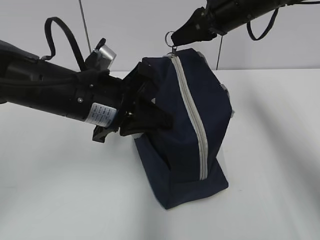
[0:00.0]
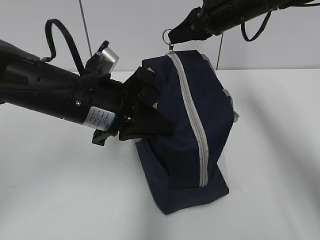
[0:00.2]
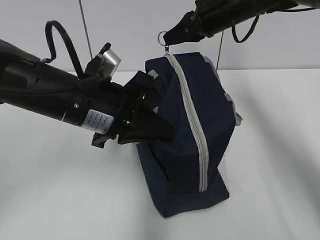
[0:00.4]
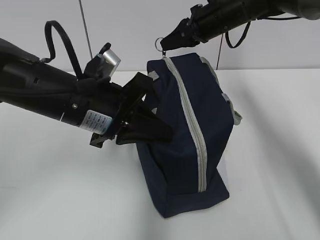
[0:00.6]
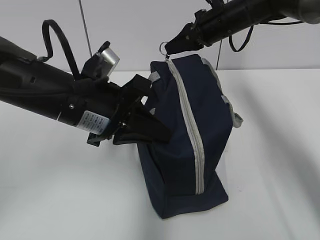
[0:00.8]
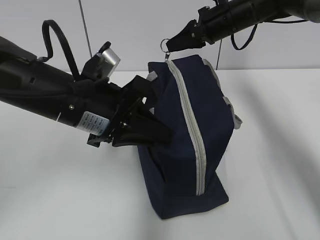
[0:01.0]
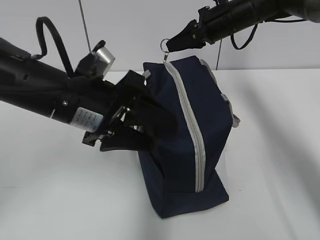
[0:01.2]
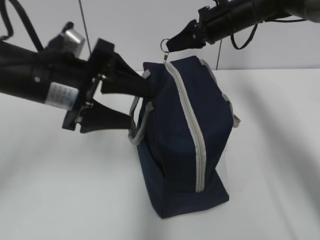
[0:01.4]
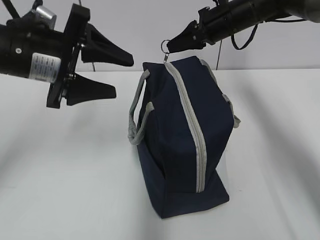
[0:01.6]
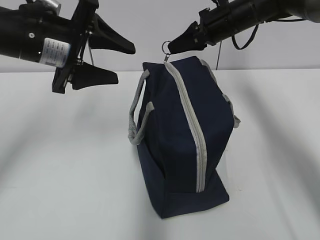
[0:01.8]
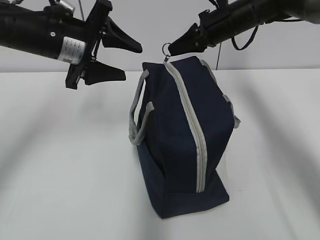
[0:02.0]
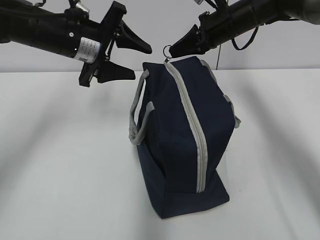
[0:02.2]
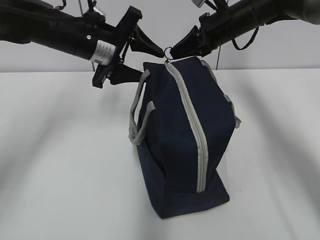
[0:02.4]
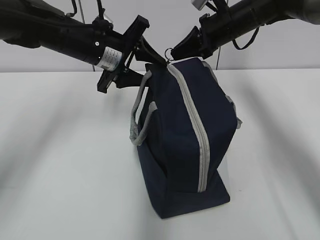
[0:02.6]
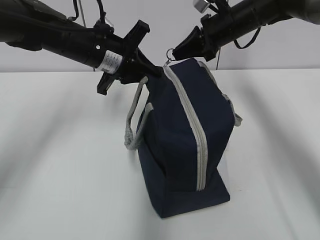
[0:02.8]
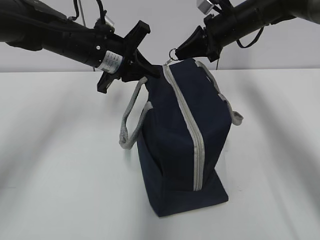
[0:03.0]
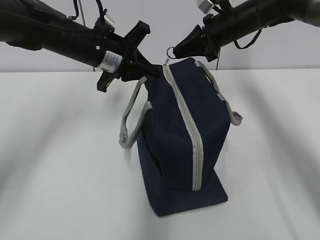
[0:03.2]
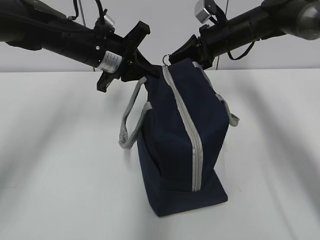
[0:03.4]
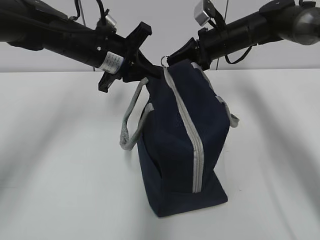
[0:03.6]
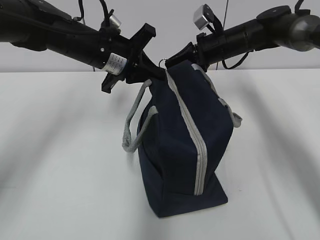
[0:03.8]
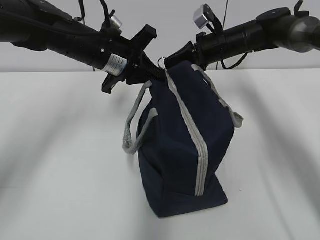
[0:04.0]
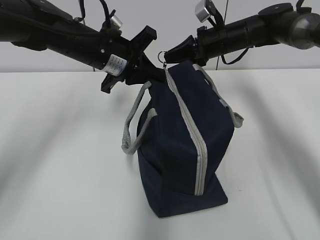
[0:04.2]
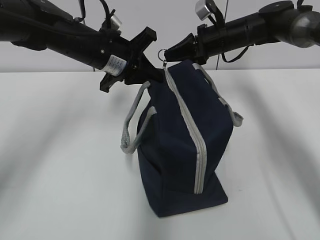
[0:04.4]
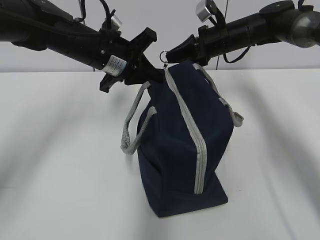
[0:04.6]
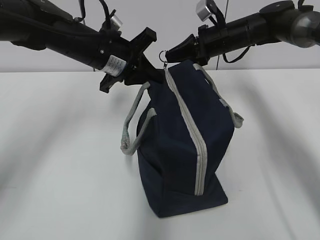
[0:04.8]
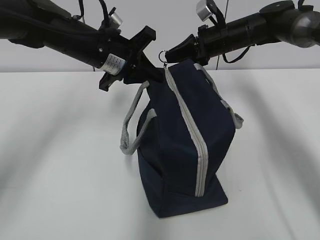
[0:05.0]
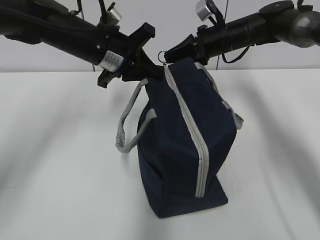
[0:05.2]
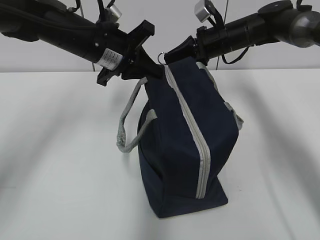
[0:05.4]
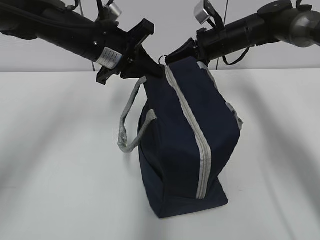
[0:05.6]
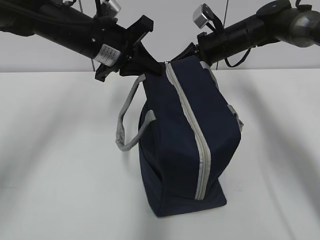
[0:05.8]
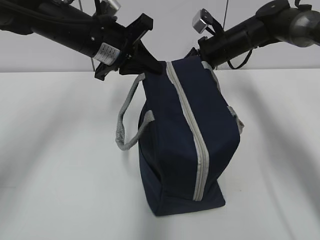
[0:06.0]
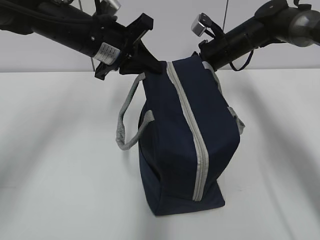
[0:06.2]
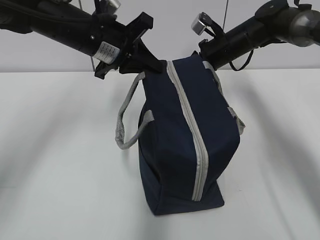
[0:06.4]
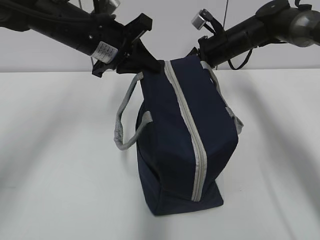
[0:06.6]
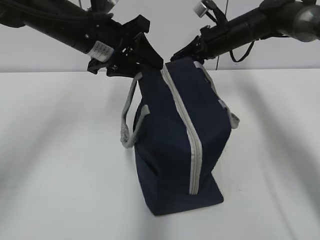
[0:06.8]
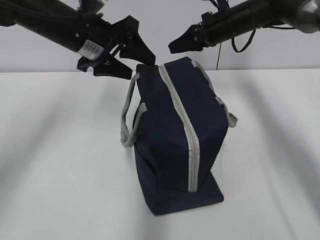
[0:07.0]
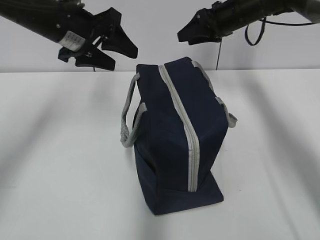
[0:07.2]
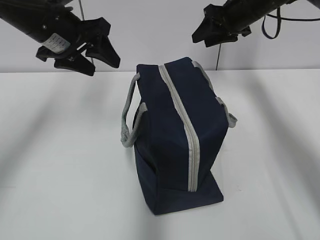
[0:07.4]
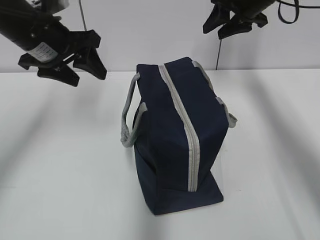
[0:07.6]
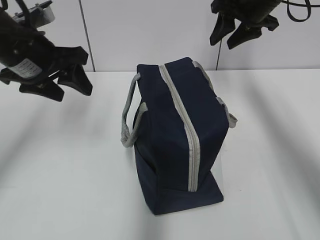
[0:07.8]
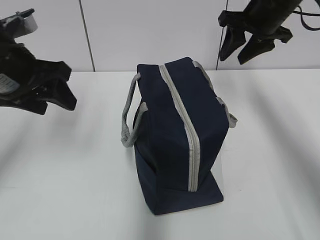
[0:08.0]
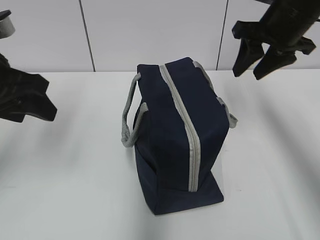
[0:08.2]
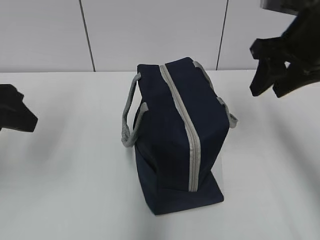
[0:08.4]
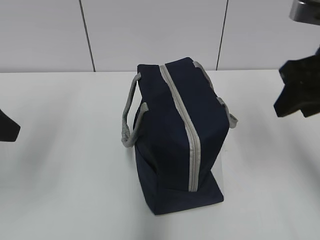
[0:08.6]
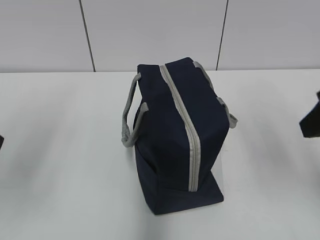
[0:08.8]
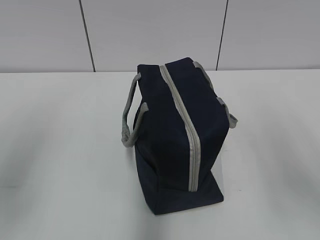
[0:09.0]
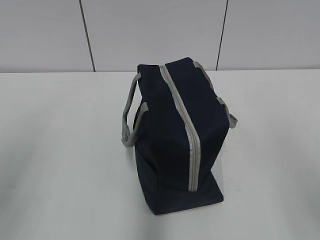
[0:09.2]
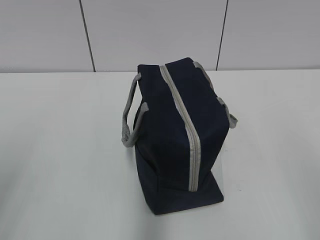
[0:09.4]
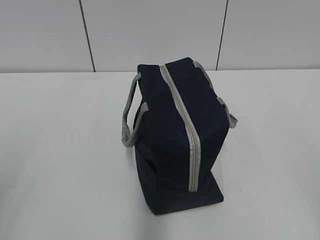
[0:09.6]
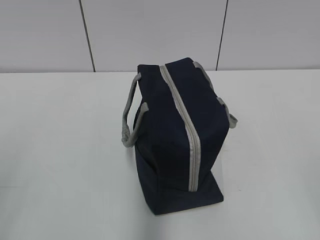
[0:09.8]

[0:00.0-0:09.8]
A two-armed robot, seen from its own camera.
0:00.0 to 0:01.4: The right gripper goes about 5 cm forward. Meanwhile the left gripper opens up.
0:01.4 to 0:02.8: The left gripper heads forward, covering approximately 15 cm, and closes up.
0:02.8 to 0:05.6: The grippers make only small movements.
0:05.6 to 0:07.0: The right gripper opens up. Meanwhile the left gripper opens.
0:07.0 to 0:08.4: The left gripper goes roughly 20 cm backward and to the left. The right gripper shifts about 20 cm backward and upward.
0:08.4 to 0:09.8: The left gripper shifts approximately 15 cm backward; the right gripper moves backward, some 35 cm.
